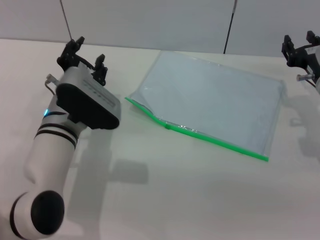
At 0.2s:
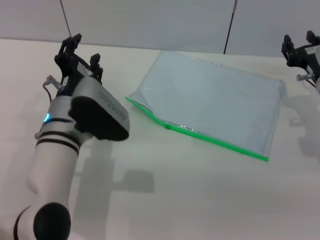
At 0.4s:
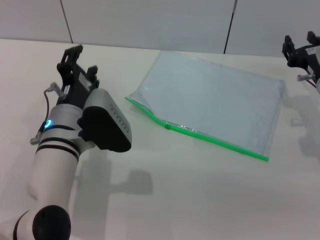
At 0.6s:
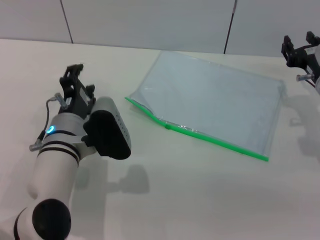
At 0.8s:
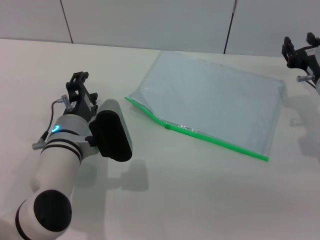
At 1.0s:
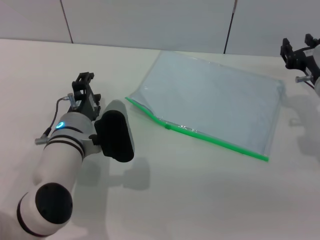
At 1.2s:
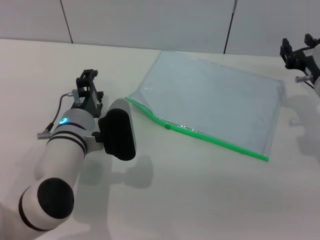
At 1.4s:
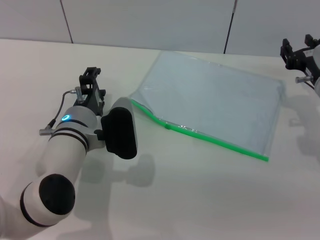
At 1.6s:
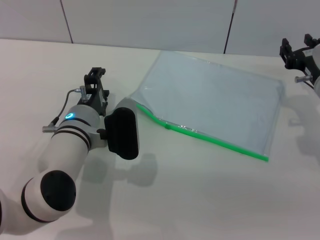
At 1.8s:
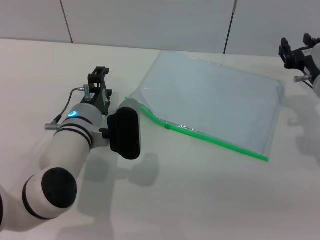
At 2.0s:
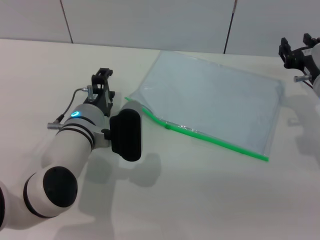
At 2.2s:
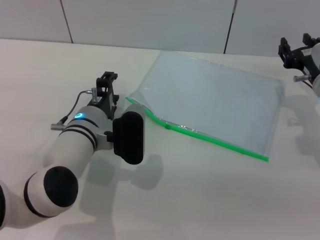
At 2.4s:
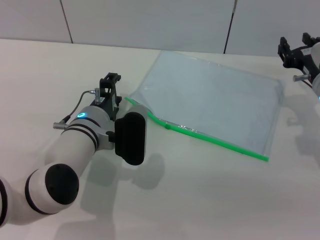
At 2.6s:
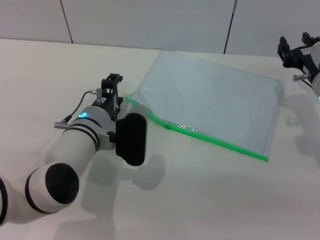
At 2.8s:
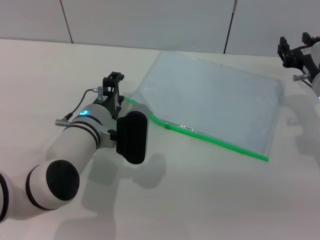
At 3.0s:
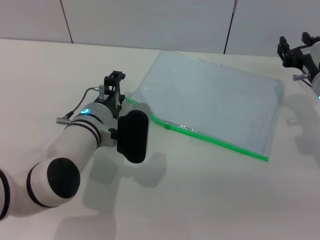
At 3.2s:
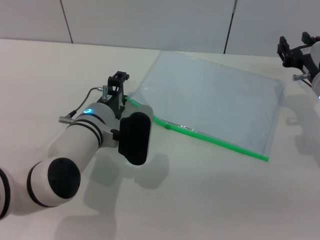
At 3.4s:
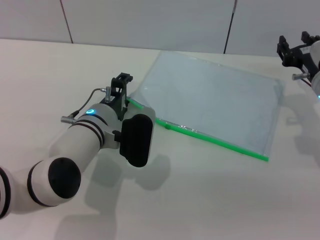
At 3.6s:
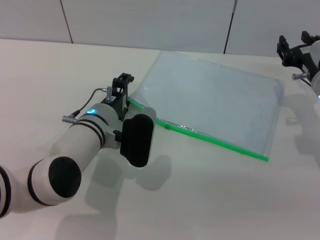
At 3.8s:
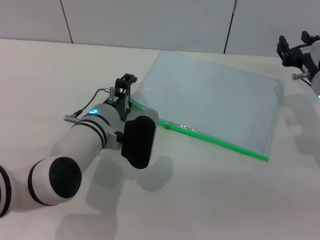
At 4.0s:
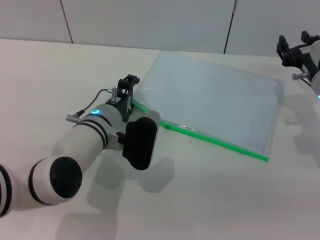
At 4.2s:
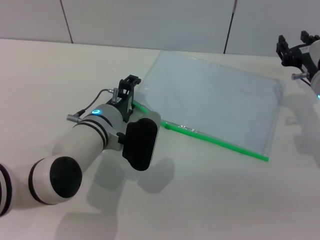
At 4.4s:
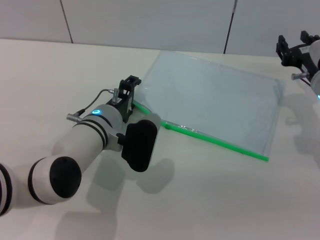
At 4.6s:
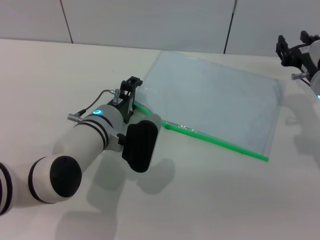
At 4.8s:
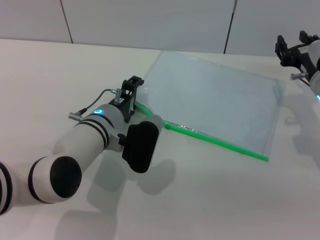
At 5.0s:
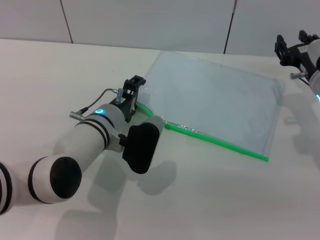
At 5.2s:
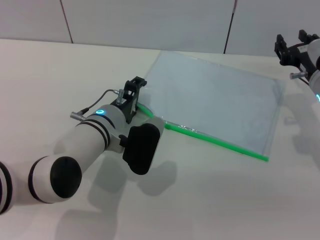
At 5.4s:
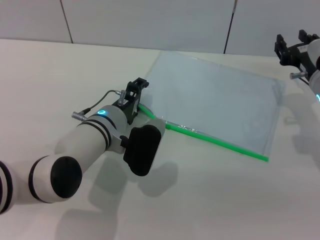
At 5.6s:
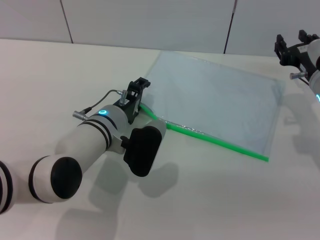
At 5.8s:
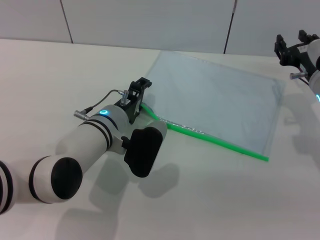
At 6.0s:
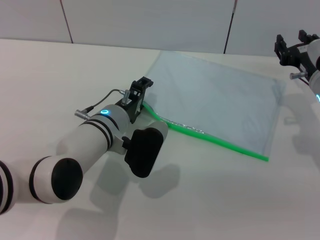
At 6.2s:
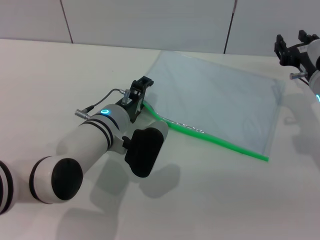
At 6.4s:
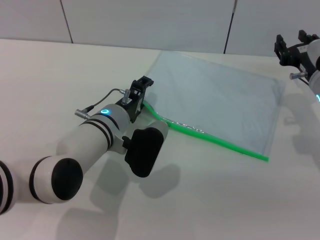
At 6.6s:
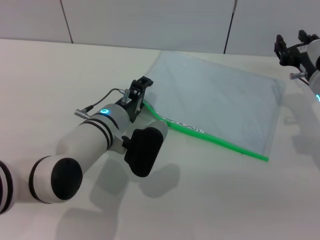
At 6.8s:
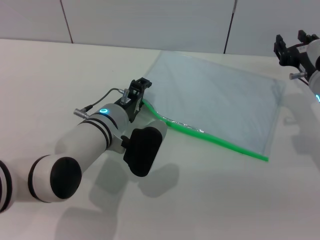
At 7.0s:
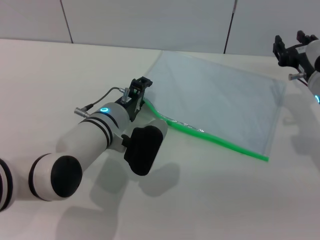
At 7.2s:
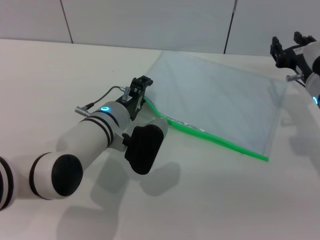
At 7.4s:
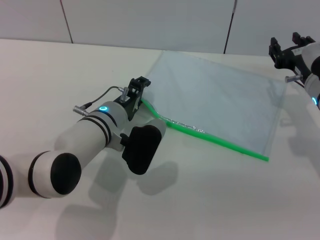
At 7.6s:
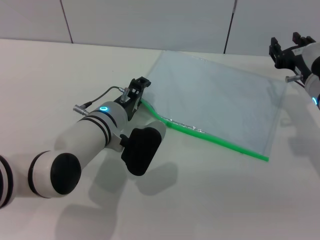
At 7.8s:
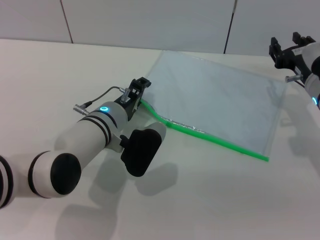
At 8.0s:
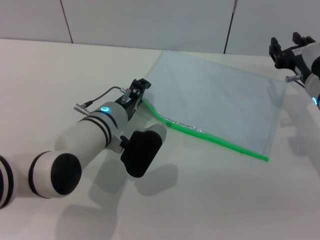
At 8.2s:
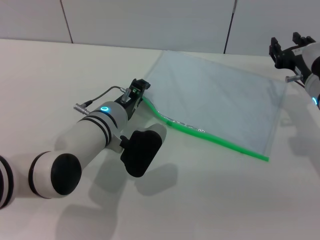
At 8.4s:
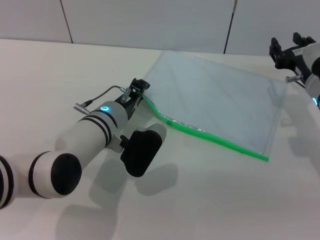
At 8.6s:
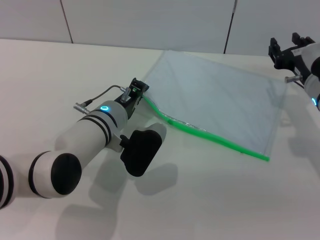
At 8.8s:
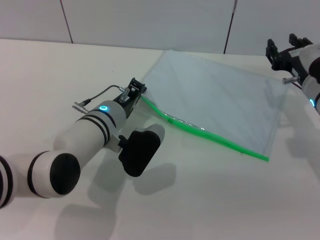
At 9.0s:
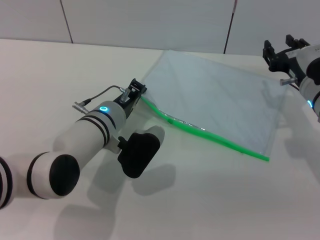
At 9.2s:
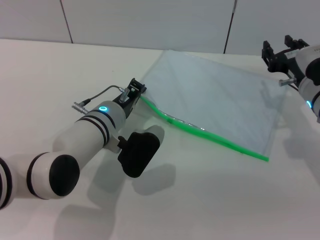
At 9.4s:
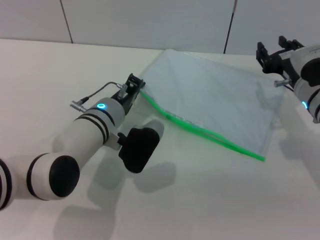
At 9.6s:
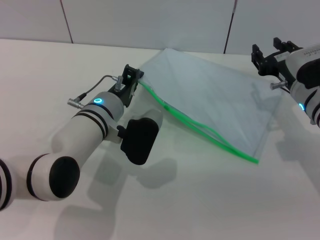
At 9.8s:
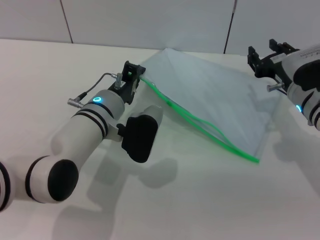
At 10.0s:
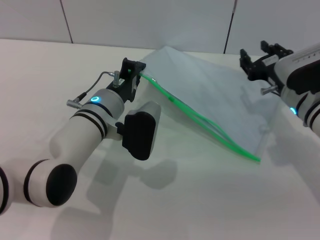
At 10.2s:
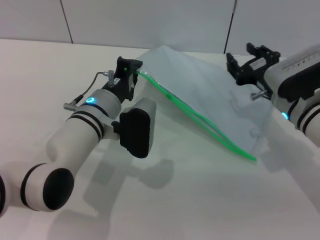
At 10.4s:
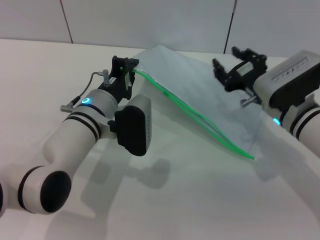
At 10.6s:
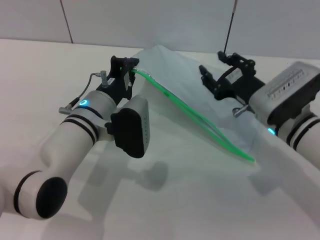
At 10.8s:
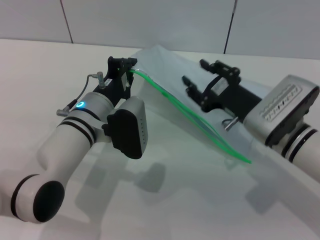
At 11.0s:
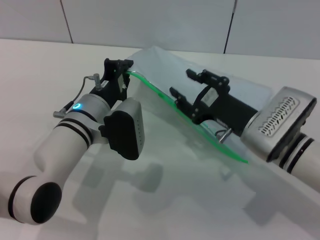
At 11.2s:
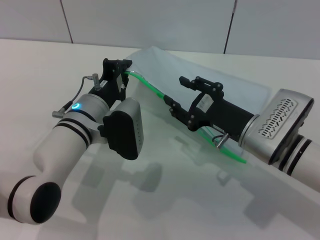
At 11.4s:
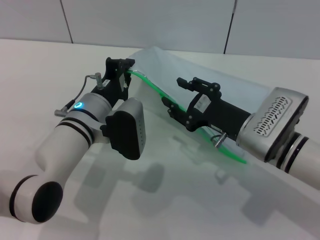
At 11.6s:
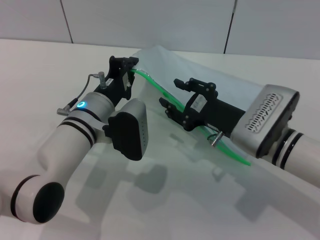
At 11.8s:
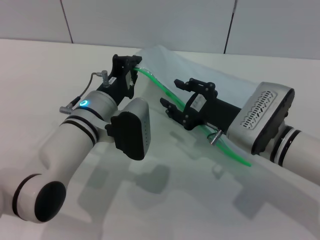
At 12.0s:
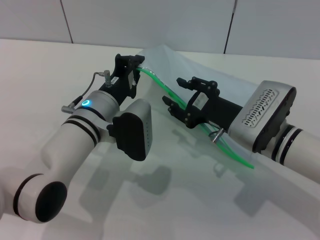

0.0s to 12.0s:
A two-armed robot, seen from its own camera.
Step, 0.0s to 10.8s: Pick up the transparent plastic bag with the left gripper.
1.6s to 4.4s: The grippers make only small movements.
4.4s to 6.0s: The grippers stay close to where they were, moving slightly.
6.0s to 7.6s: The two grippers keep their place.
7.6s to 9.0s: The left gripper closes its fingers.
9.0s to 10.4s: The right gripper shifts by some 5 cm.
10.4s to 12.0s: The right gripper changes place by about 5 cm.

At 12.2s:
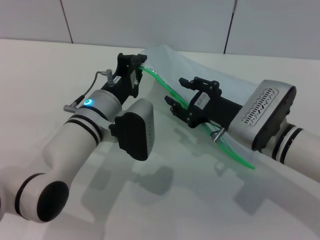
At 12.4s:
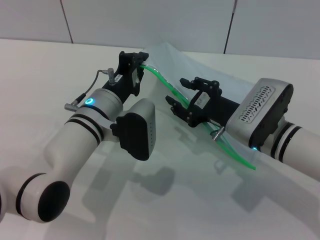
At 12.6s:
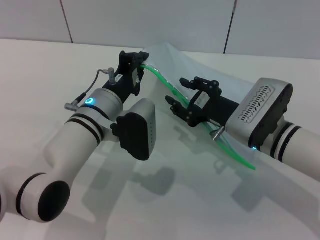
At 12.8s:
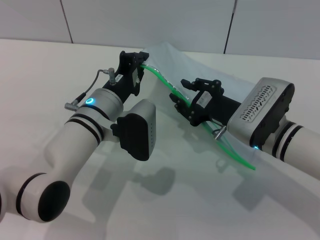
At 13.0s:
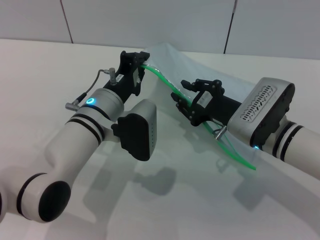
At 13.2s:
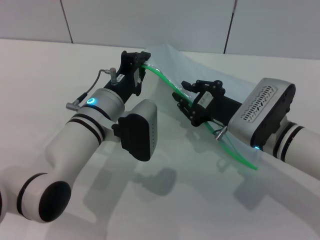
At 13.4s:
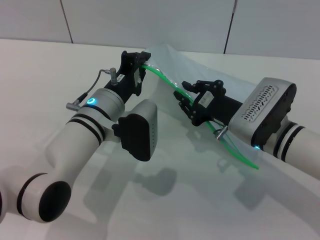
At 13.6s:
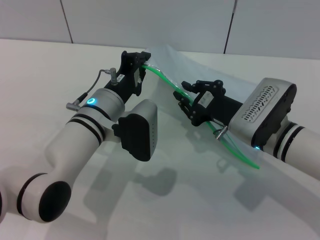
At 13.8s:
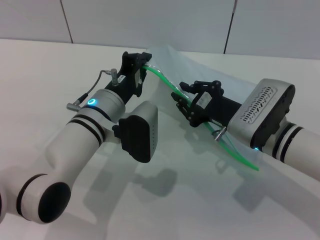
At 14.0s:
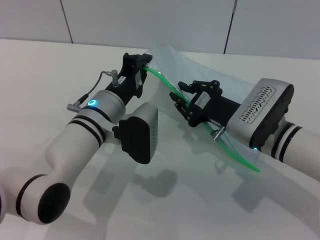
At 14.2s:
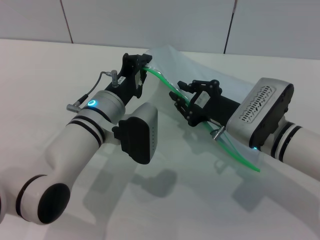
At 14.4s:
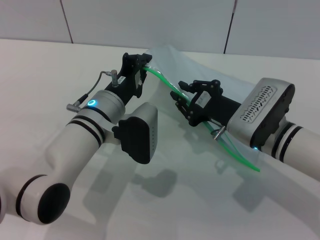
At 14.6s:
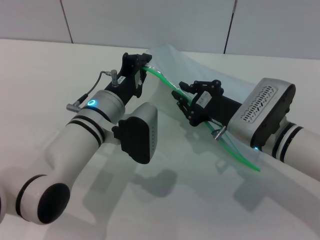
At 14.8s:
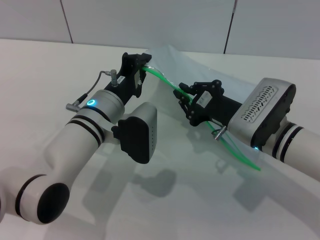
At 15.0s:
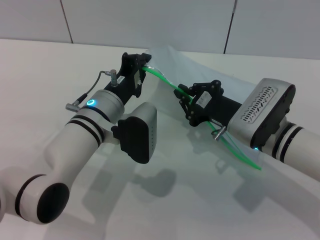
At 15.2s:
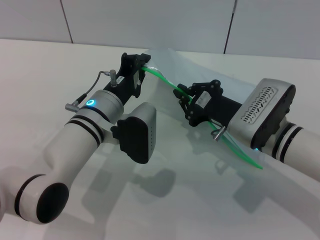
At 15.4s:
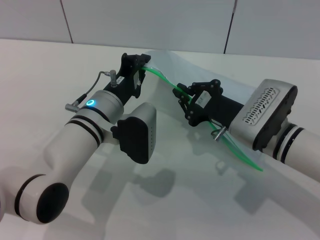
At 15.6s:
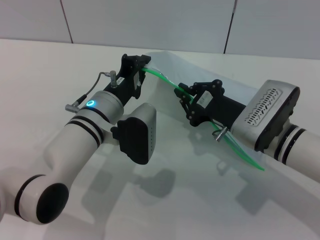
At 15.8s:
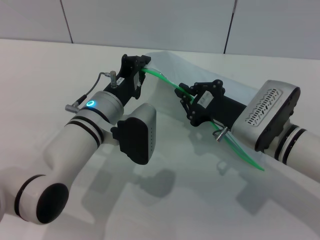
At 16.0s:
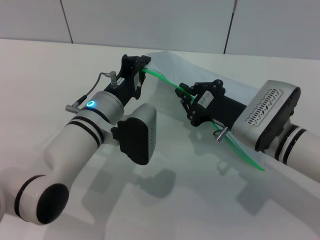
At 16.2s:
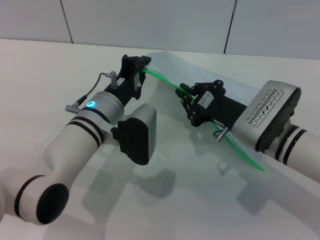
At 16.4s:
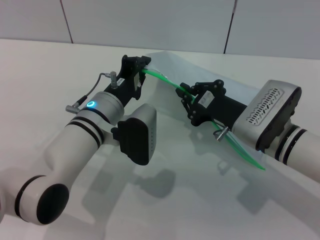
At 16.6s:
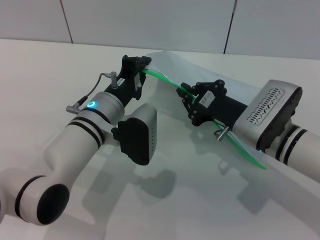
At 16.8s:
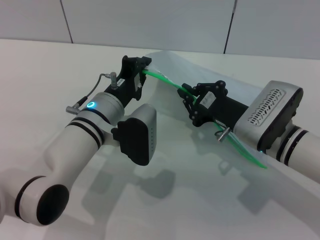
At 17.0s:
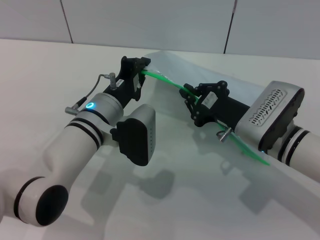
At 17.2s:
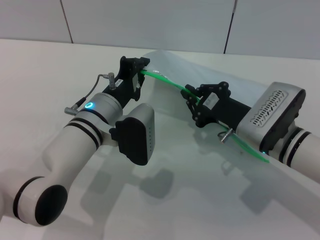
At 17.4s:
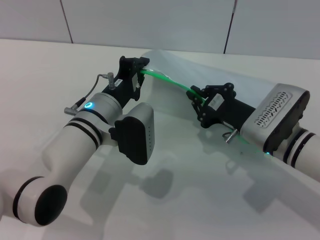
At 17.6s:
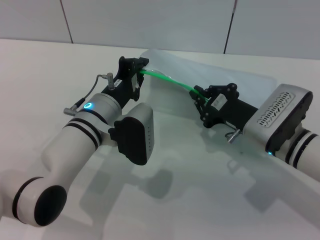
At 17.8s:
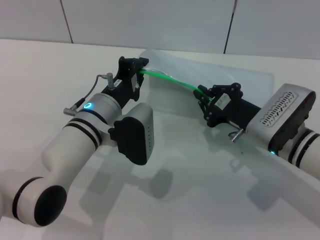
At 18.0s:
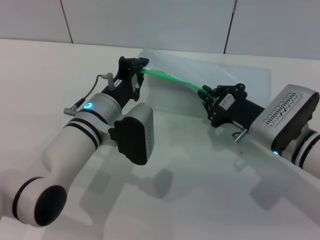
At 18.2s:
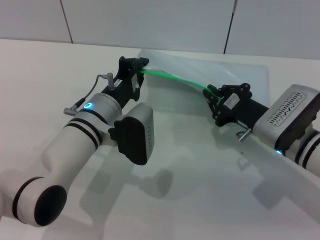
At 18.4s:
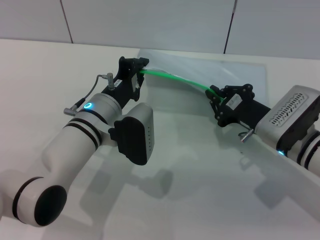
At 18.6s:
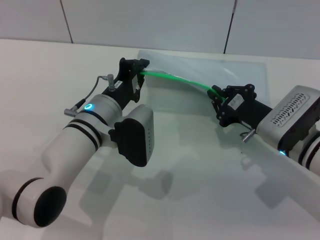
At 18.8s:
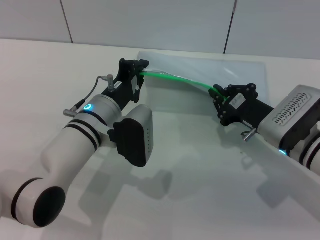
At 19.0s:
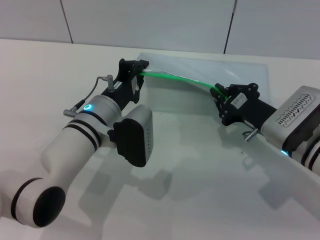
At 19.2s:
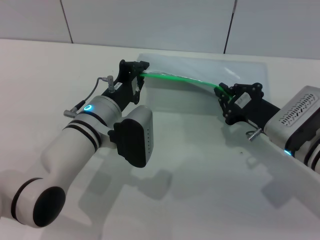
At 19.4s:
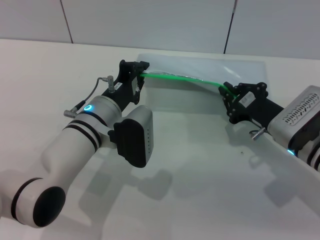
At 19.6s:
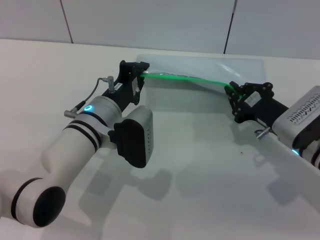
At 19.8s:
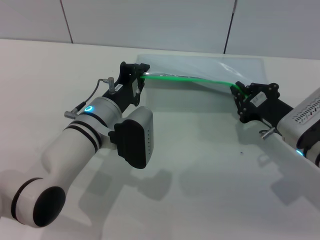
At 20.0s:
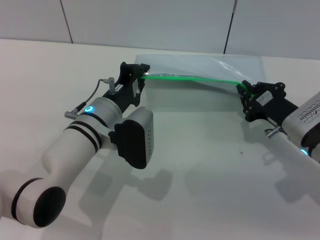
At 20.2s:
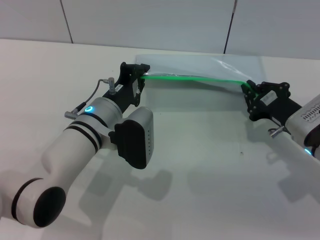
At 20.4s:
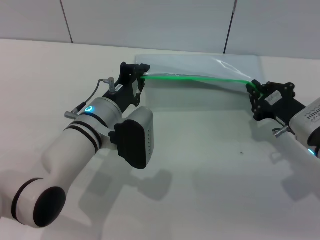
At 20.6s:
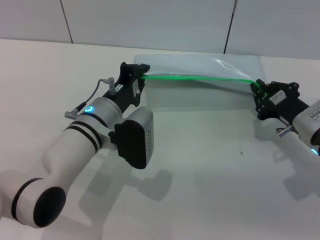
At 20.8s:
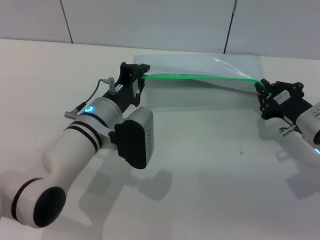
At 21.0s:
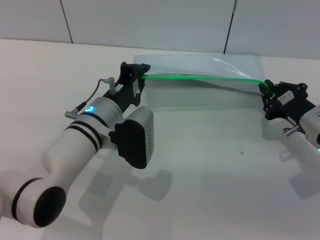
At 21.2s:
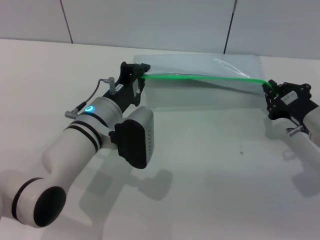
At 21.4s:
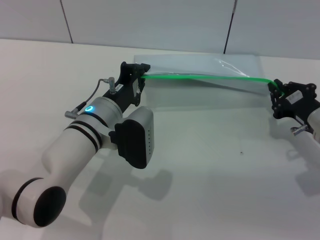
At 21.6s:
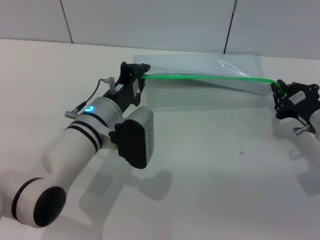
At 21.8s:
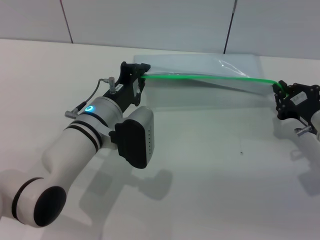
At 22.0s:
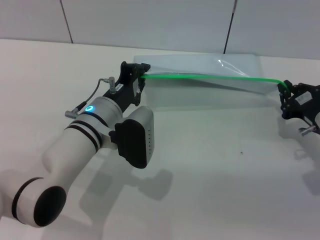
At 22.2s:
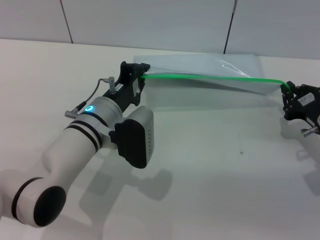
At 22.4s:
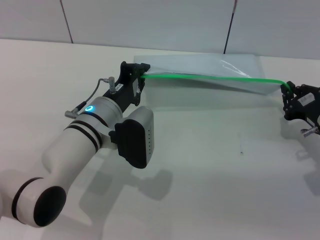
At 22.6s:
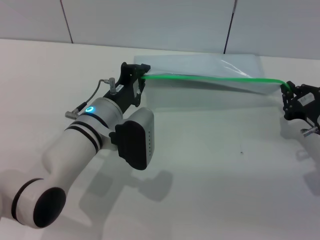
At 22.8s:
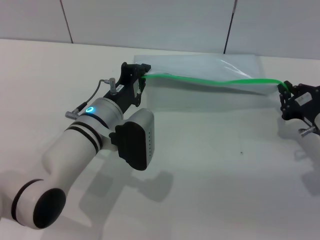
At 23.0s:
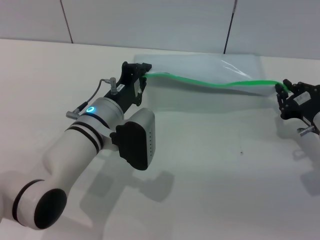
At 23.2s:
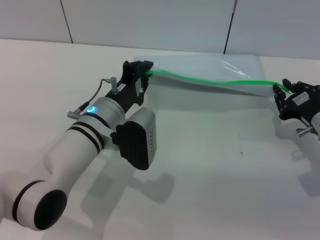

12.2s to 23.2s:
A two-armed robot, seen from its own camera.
Step, 12.2s to 23.2s: Pulling up the zipper on the transparent plastic bag with the right gripper to close it.
12.2s to 17.0s: Neither gripper changes place.
17.0s to 18.4s: There are only small adjustments of the grippers.
18.4s to 20.0s: The grippers make only small movements.
20.0s to 21.6s: The grippers make only small movements.
21.6s to 23.2s: Both grippers stay about where they are.
